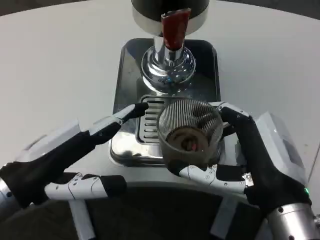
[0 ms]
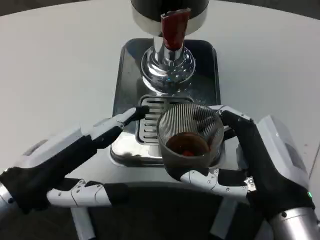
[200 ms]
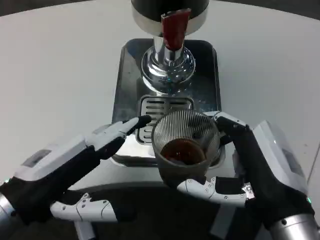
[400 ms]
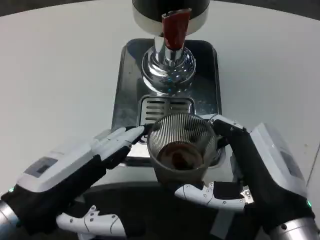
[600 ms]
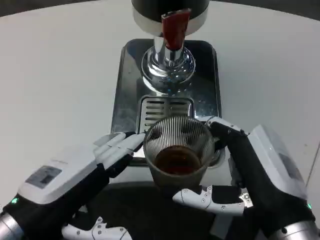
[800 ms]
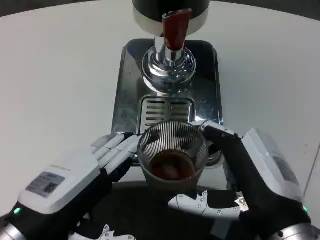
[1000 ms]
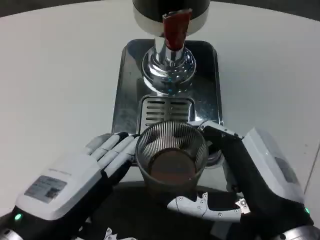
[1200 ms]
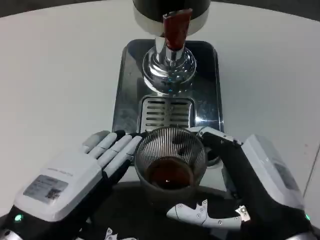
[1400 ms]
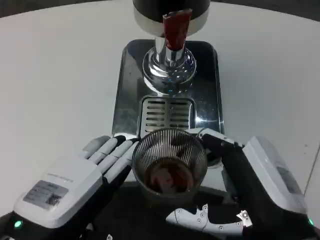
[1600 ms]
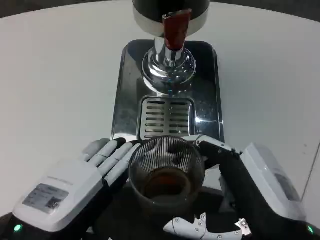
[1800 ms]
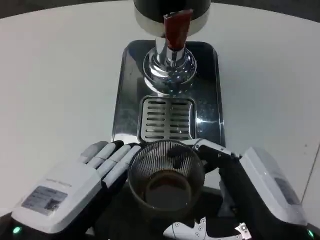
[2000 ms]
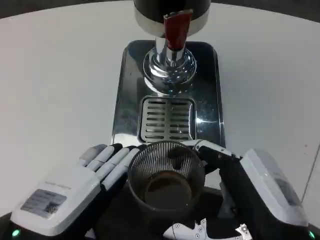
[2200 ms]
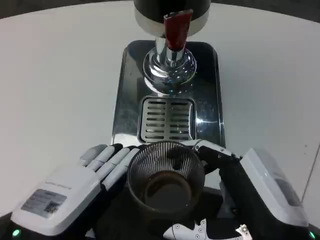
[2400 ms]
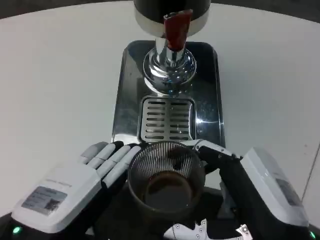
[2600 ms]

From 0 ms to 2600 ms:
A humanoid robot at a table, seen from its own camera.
Task of the whole recording: Grasp the cup under the faucet to collect the drink, then remove the cup.
From 0 ms to 1200 ms: The left hand shifts approximately 5 cm backward.

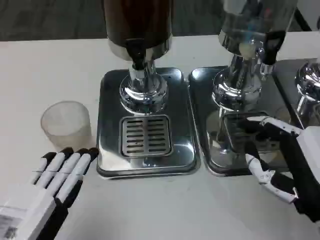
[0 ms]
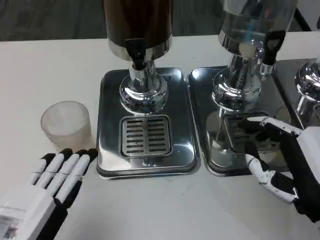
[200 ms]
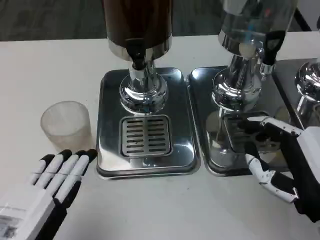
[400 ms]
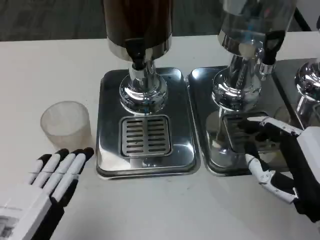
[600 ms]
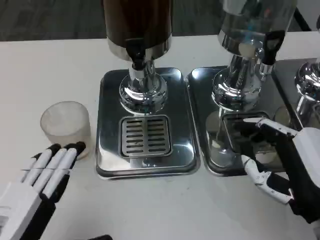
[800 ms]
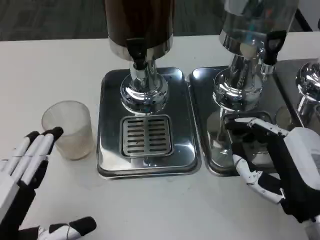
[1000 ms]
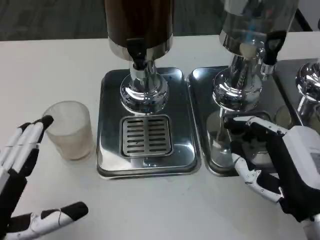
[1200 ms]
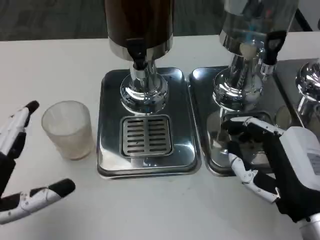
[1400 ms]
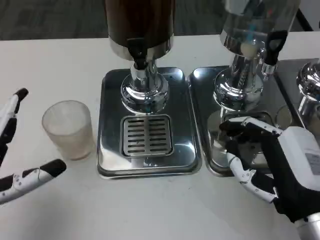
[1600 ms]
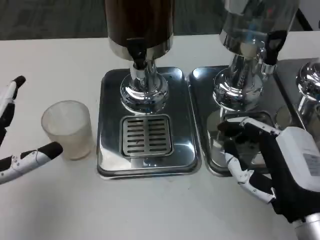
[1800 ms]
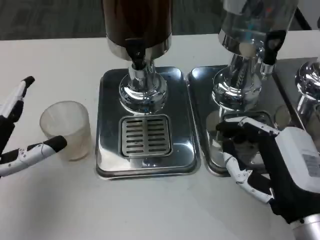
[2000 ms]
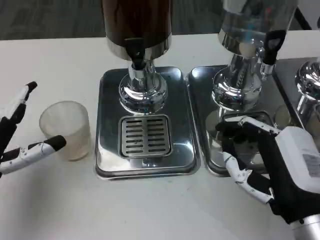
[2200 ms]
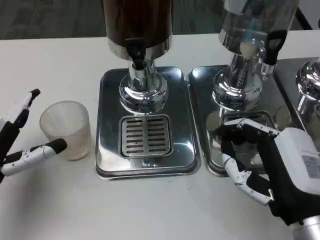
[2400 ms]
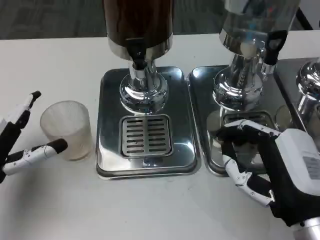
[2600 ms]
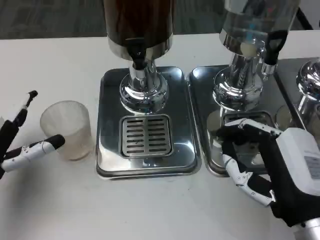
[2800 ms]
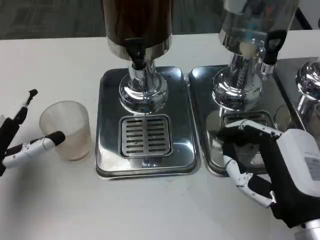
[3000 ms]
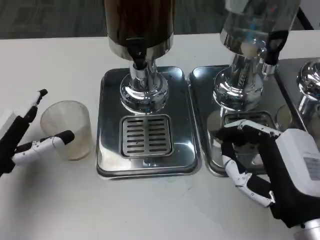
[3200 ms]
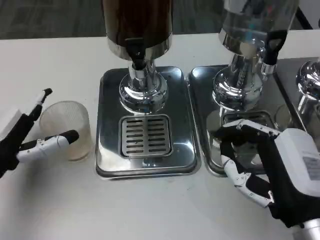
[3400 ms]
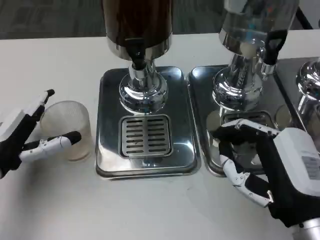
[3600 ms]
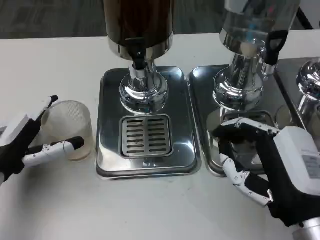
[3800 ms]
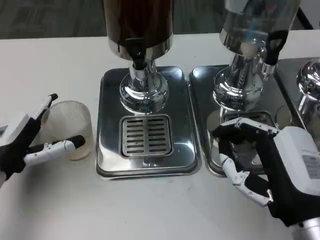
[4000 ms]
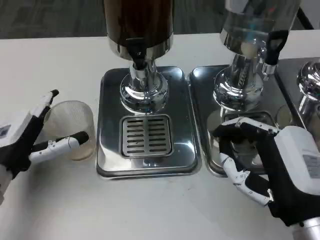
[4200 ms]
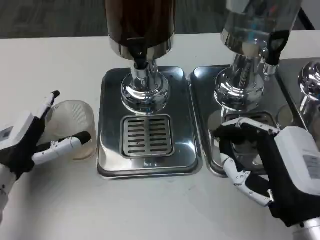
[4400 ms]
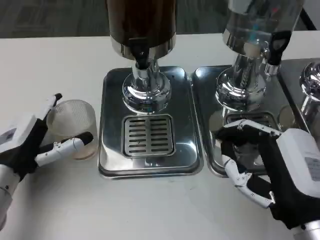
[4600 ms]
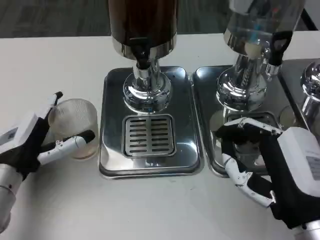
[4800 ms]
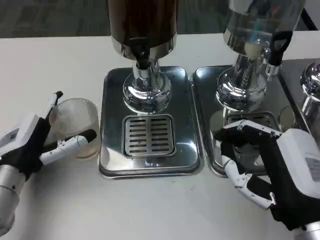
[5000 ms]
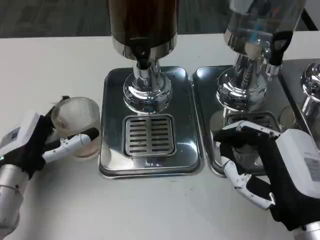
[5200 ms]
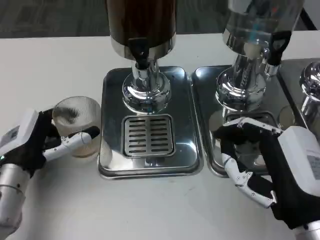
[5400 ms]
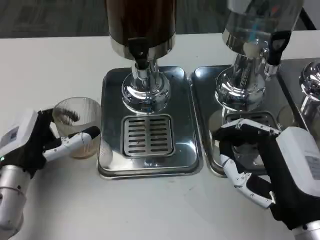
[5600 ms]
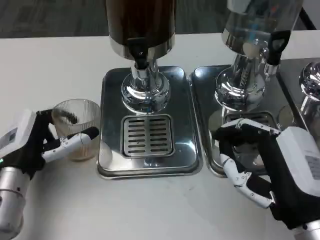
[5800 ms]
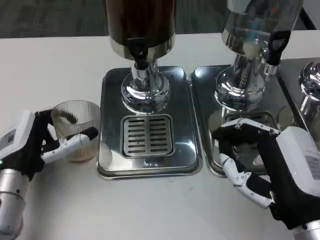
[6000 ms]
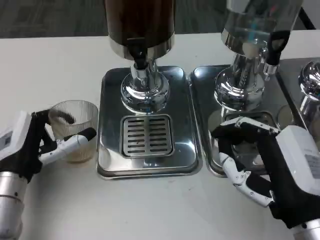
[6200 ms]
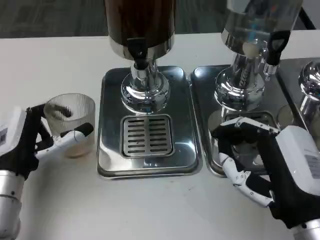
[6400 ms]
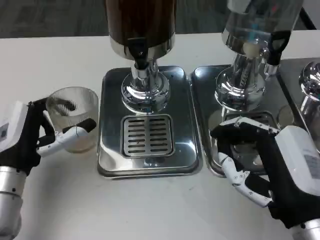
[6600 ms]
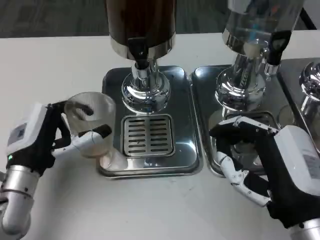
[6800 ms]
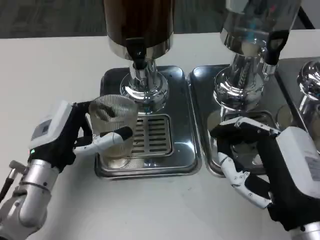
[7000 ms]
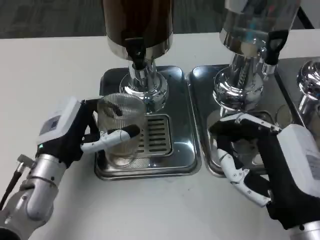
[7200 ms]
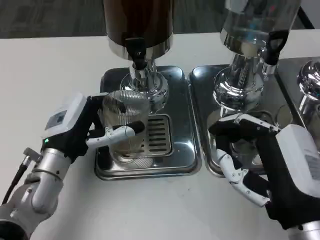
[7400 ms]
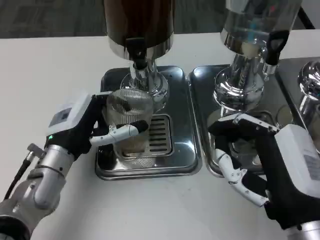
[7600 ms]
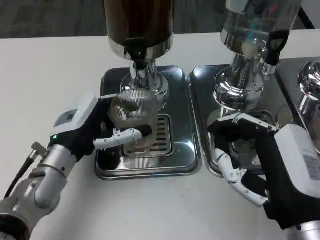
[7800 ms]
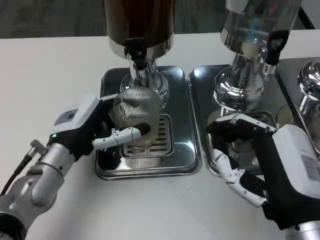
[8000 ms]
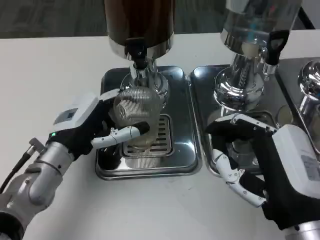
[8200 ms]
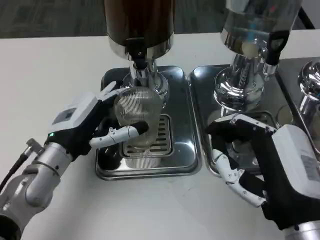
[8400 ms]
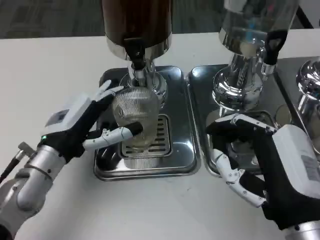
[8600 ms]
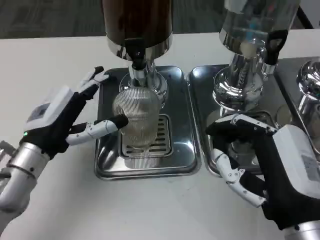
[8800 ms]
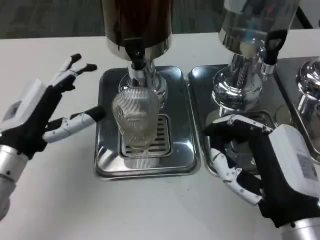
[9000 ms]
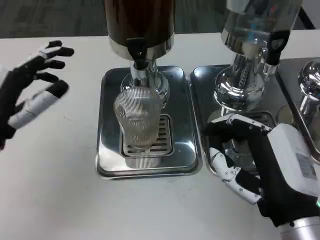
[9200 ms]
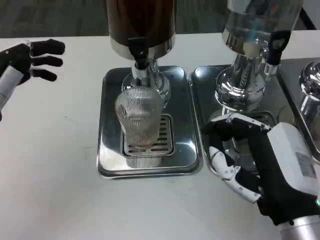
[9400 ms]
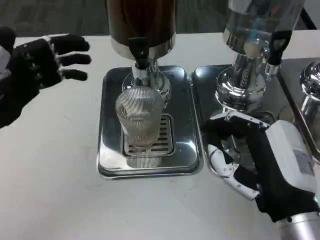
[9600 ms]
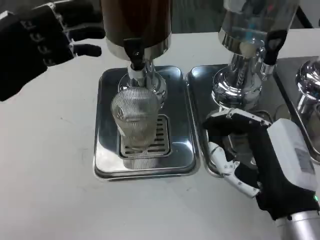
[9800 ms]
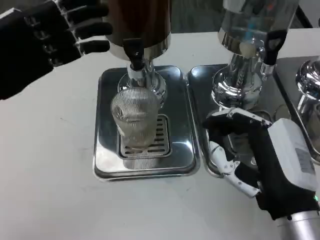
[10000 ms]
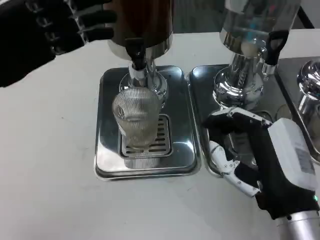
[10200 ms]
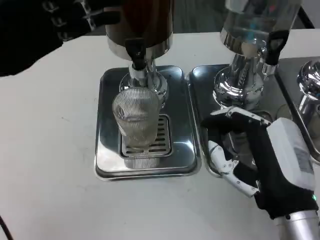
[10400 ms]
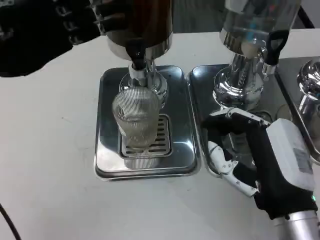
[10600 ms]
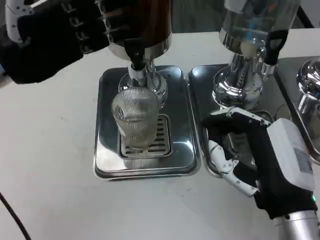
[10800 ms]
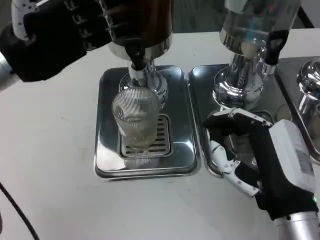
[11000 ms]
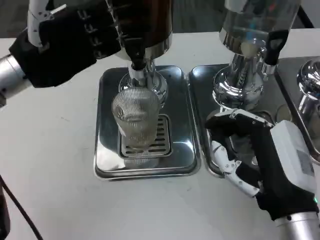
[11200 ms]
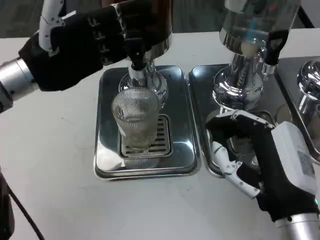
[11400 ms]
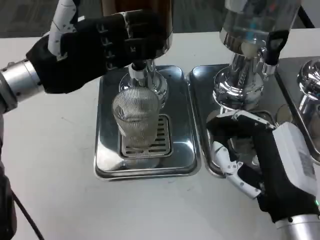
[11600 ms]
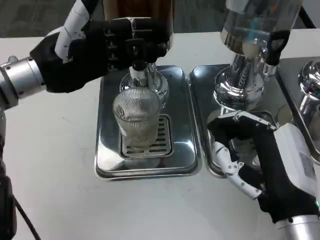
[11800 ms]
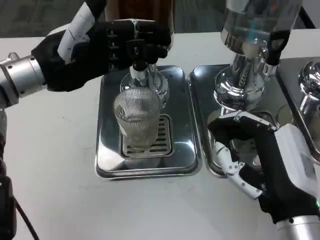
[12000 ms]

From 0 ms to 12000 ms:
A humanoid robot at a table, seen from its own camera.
Task of the whole recording: Grasp the cup under the faucet to collect the drink, then remove the cup.
From 0 ms to 1600 ms: The left hand travels forward by some 5 cm.
From 1600 ms to 3000 ms: The left hand heads forward, covering roughly 10 cm.
From 4400 ms to 6000 ms: The hands make only small movements.
From 6000 ms to 7600 ms: The left hand goes approximately 5 cm to the right.
From 7600 ms to 9000 ms: The left hand moves to the left, approximately 5 cm.
From 9000 ms to 10400 ms: The left hand moves upward and forward, roughly 15 cm.
From 10400 ms to 12000 ms: The left hand goes roughly 5 cm to the right.

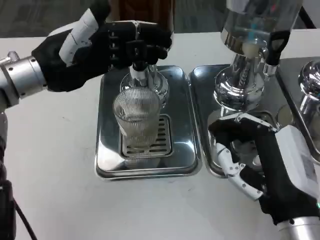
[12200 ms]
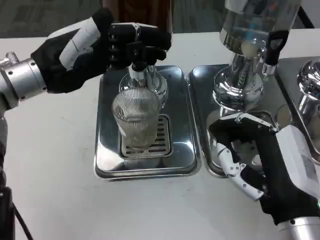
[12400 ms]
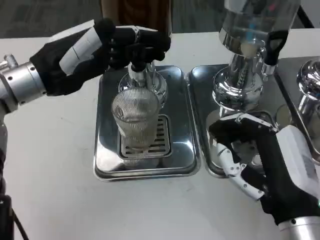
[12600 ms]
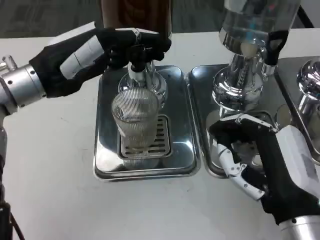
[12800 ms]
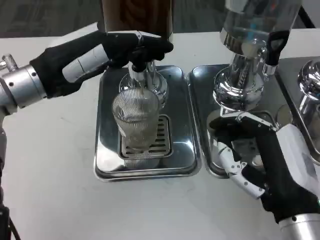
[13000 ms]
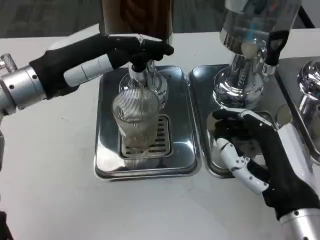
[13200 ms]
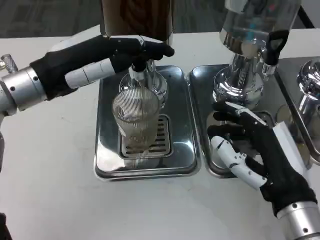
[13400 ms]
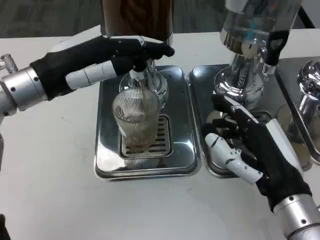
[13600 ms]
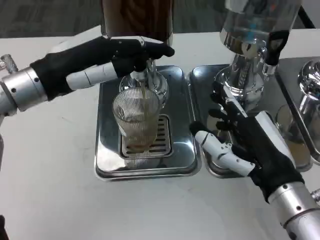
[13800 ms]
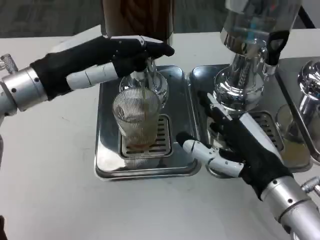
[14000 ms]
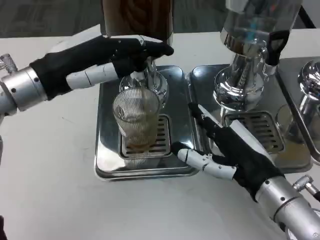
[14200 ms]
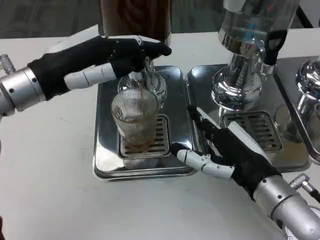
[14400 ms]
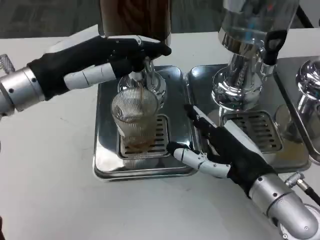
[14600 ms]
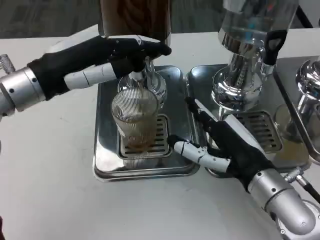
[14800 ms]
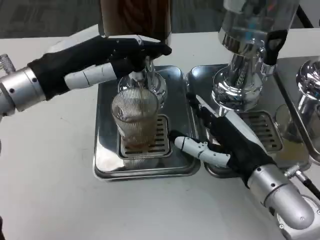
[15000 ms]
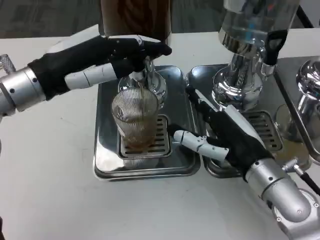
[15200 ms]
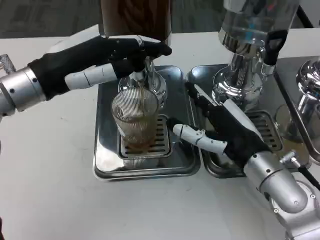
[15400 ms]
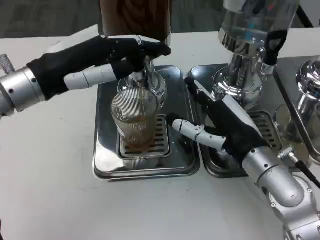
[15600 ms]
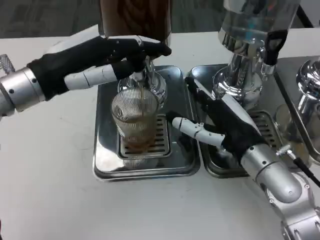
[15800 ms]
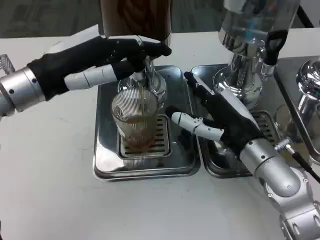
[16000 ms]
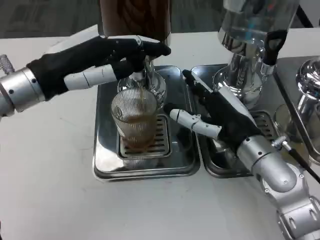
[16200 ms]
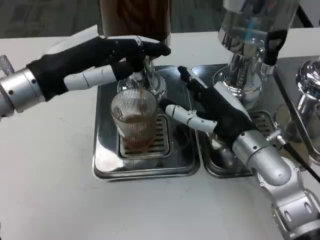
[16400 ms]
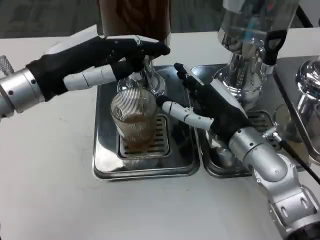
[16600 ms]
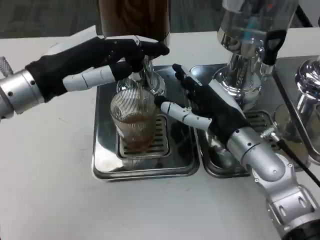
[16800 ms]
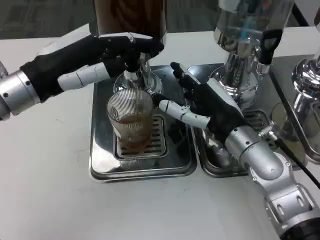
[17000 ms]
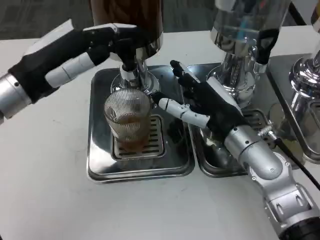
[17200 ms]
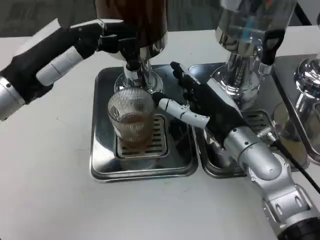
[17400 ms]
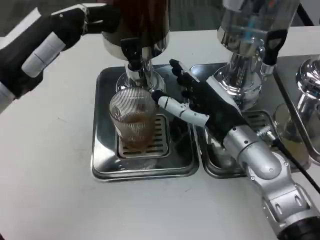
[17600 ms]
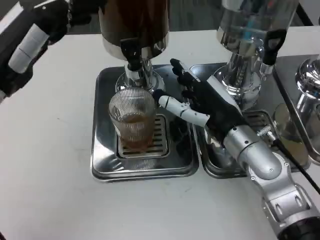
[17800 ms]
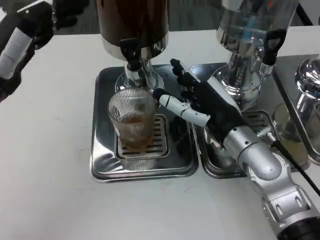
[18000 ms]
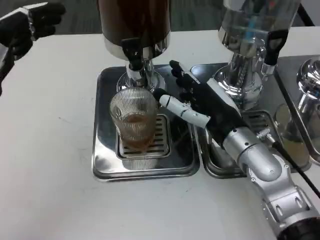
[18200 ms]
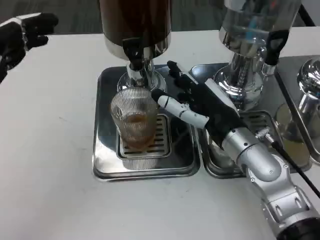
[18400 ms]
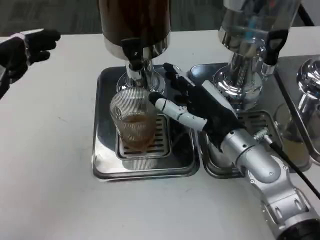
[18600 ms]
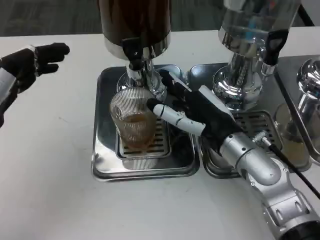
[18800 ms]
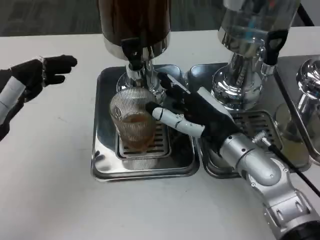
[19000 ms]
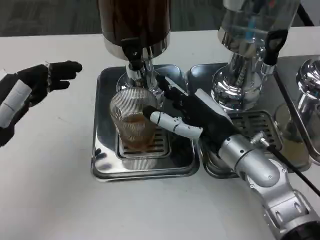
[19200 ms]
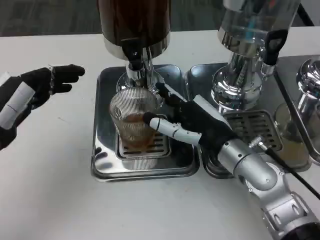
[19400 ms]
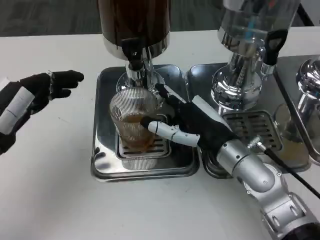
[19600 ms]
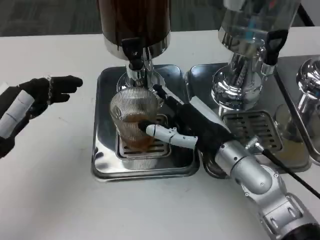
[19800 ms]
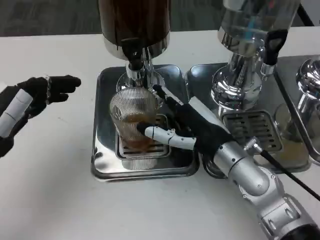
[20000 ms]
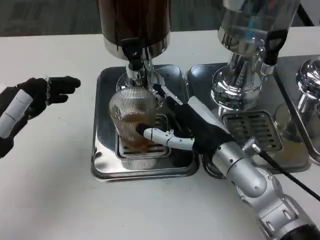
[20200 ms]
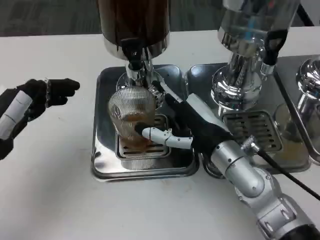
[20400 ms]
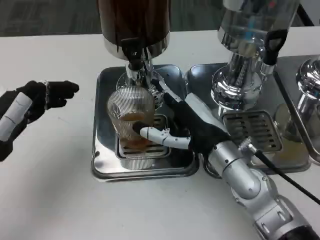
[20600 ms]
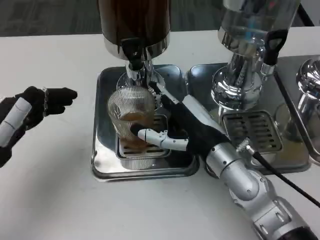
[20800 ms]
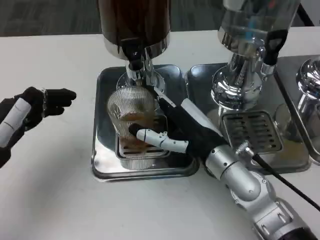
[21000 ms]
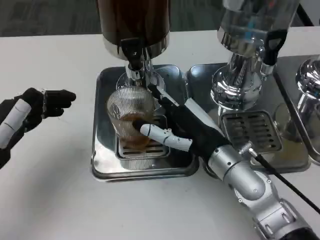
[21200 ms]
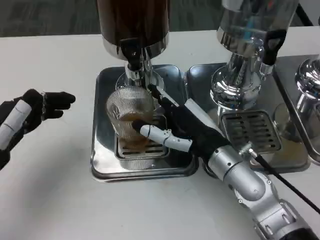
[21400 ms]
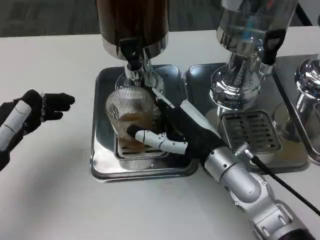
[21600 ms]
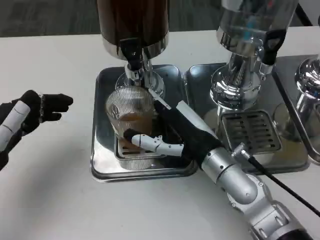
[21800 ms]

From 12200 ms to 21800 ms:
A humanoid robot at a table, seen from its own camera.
Task of the whole recording: Grasp the cup under the faucet to collect the drink, then remove the cup.
From 13800 ms to 15400 ms: The right hand moves forward, approximately 5 cm.
From 17000 ms to 18600 ms: The left hand goes some 10 cm to the left and backward.
